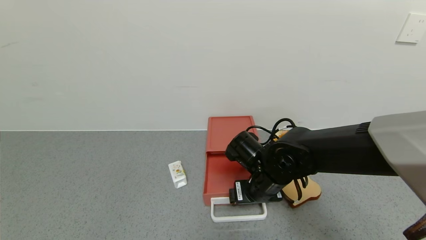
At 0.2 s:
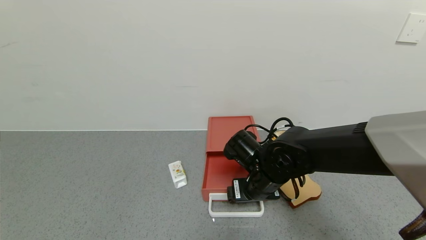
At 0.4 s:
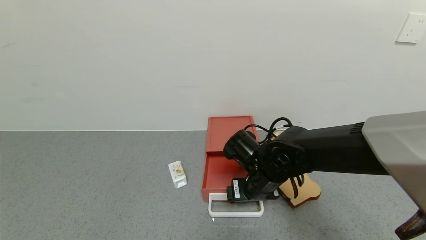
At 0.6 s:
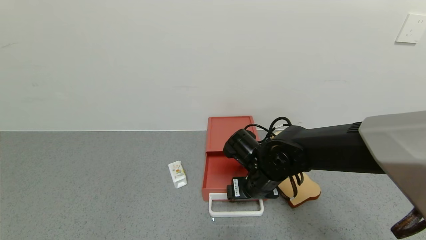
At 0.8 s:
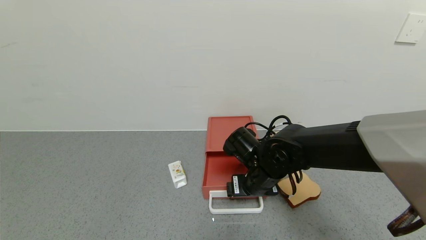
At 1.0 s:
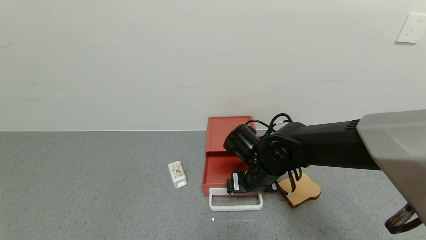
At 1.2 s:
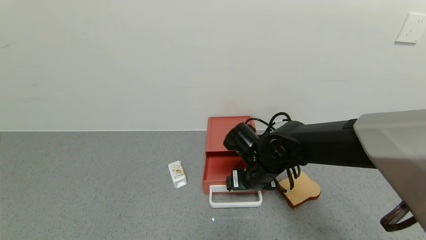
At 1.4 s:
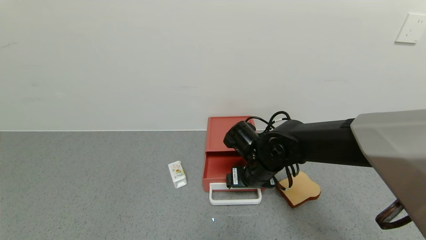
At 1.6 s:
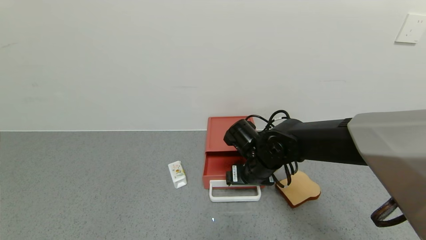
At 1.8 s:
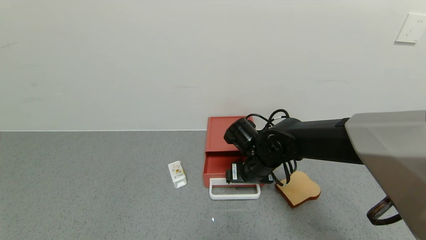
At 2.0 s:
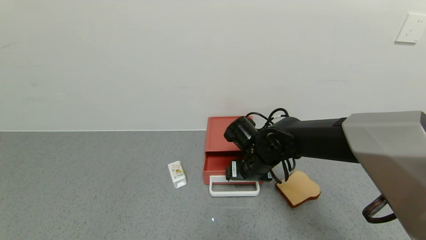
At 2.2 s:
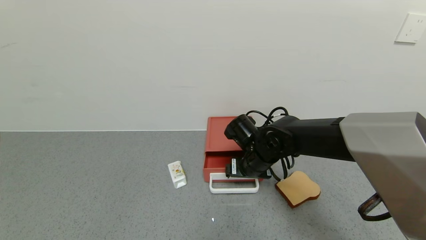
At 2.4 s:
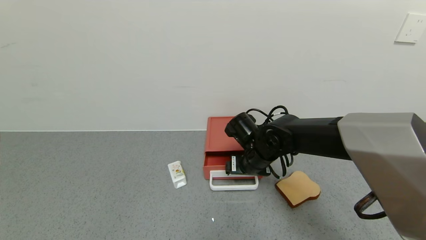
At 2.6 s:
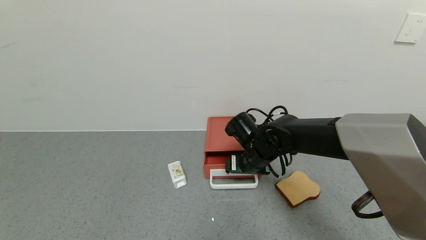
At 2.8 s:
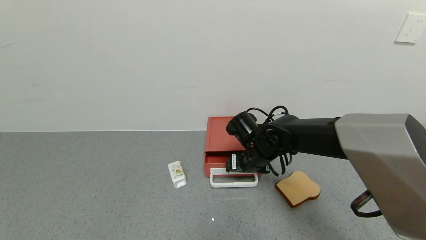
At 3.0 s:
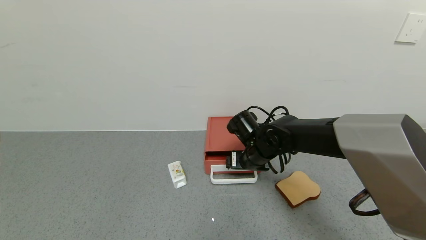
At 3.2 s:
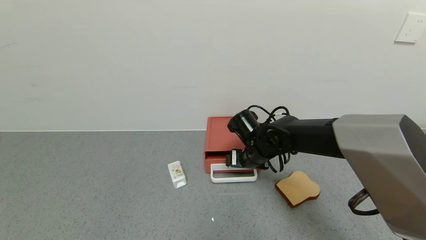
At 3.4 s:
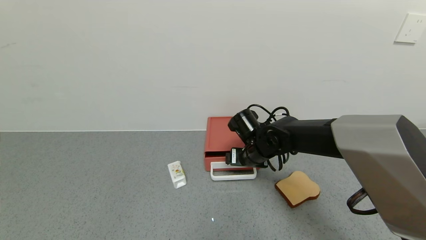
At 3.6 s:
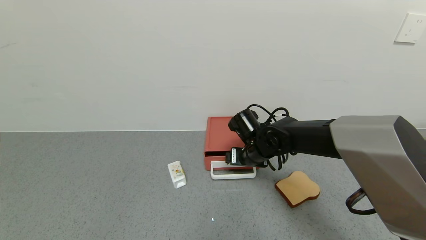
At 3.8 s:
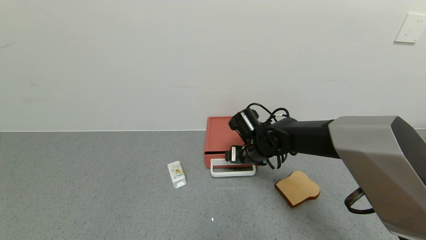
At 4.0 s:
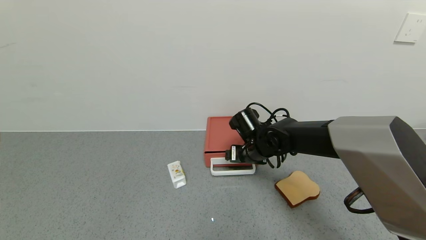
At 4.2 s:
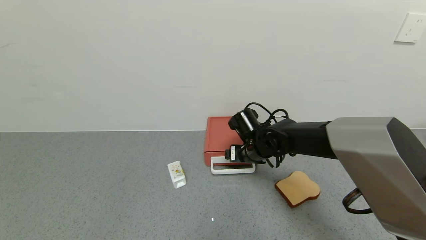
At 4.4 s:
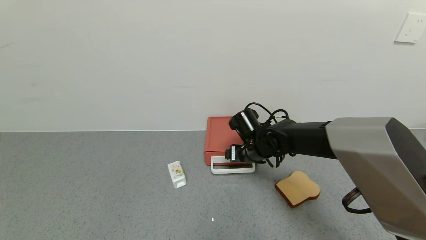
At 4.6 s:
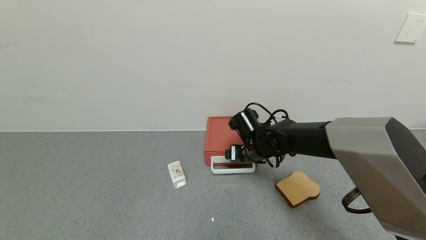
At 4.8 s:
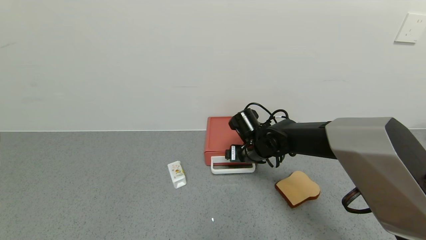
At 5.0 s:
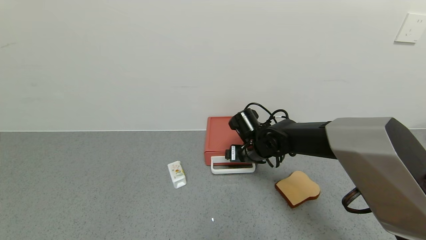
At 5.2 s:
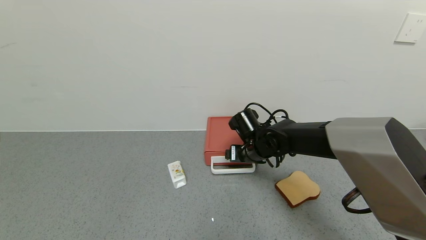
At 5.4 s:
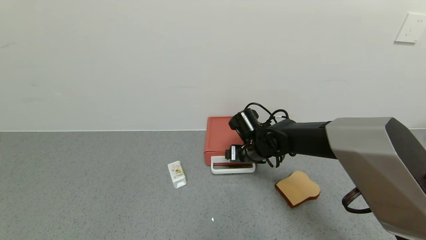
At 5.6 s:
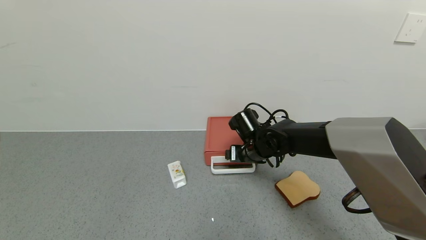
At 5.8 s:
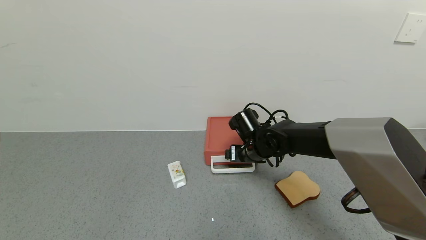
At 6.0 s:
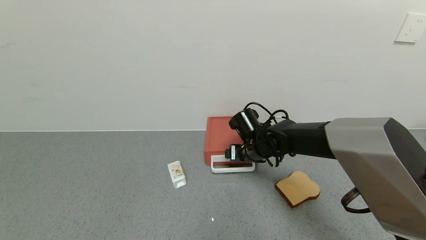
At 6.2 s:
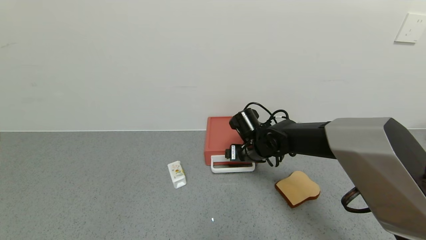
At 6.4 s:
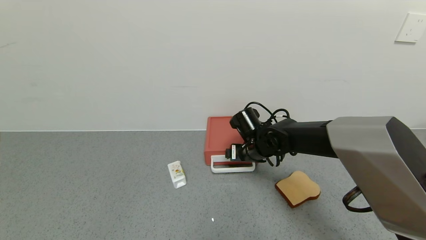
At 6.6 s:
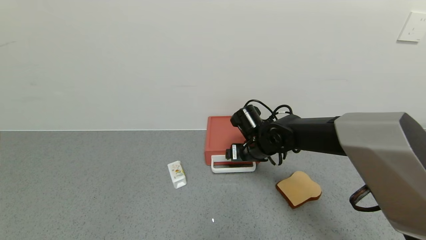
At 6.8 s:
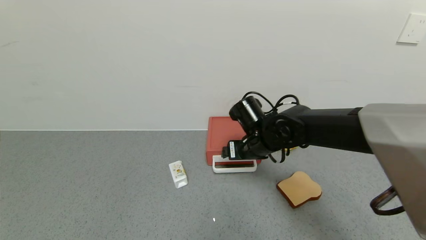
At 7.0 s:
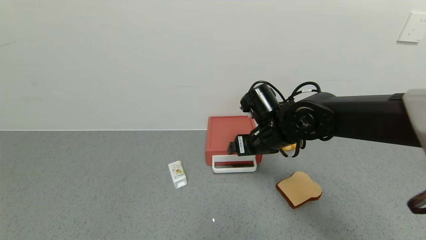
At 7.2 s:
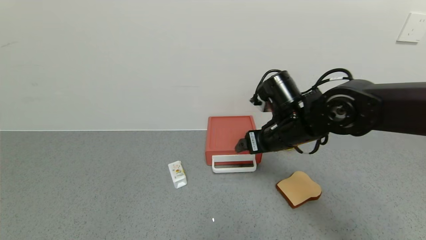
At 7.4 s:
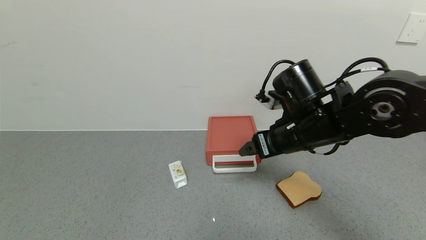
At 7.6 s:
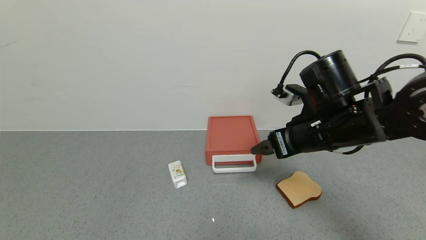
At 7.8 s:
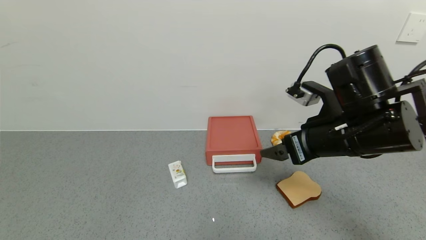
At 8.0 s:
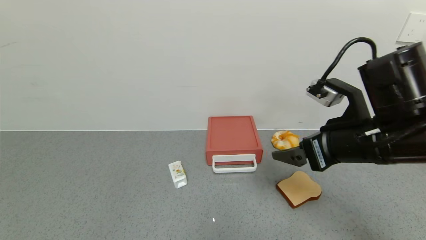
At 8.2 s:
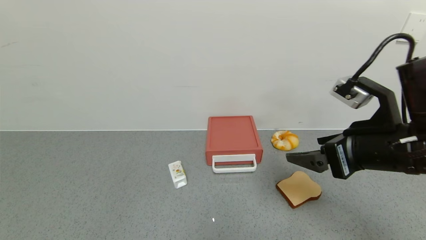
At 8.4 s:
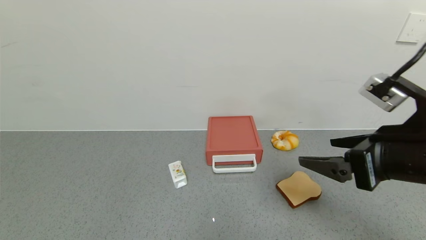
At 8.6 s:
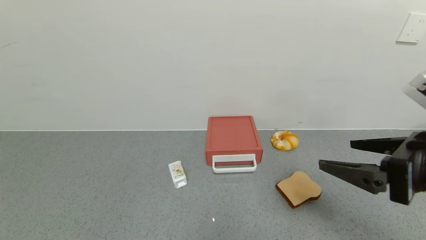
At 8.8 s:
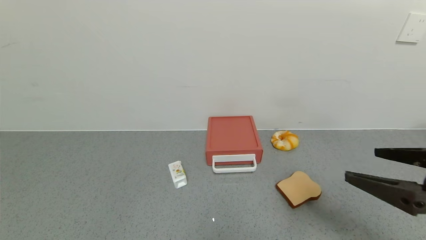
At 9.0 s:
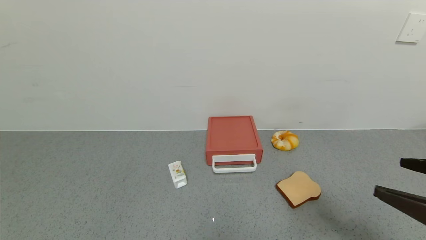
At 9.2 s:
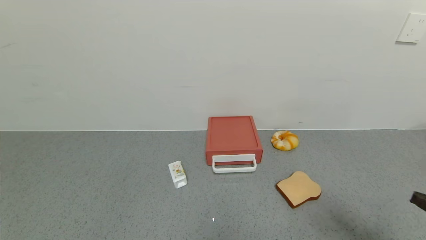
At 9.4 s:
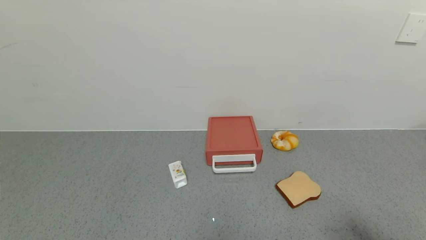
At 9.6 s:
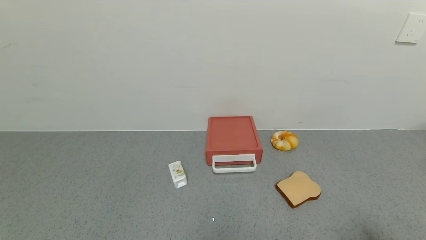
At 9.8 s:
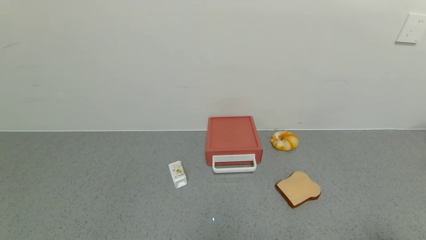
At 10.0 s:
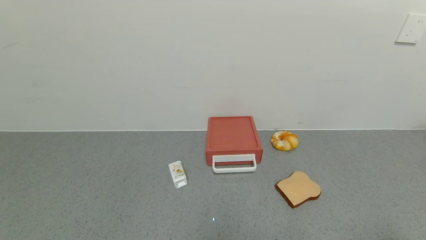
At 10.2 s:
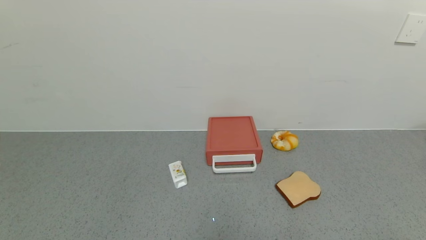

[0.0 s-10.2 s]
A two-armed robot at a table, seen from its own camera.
Task of the whole recording: use the gripper to open the drawer and close the red drawer.
Step, 0.0 to 7.0 s: Close the red drawer with the right gripper.
0.0 to 1.4 s: The grippers move only a little.
1.4 to 3.0 s: There are only small adjustments of the grippers.
3.0 to 4.4 s: The grippers make only small movements.
4.4 to 5.8 s: Both grippers stay put.
5.8 to 7.2 s: The right gripper travels upward, backward and to the right by about 15 cm.
7.2 to 8.8 s: The right gripper heads backward and to the right, covering roughly 25 cm.
8.8 to 10.2 s: The right gripper moves backward and to the right, some 20 cm.

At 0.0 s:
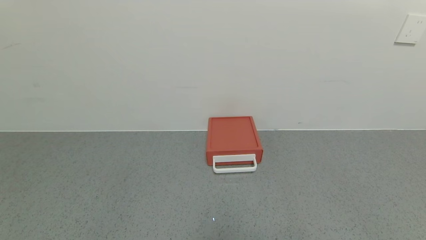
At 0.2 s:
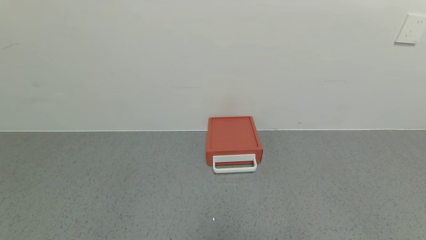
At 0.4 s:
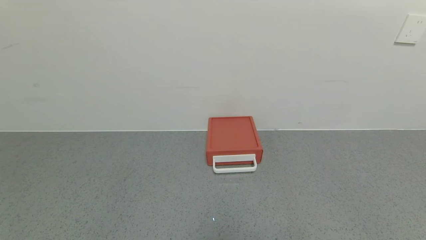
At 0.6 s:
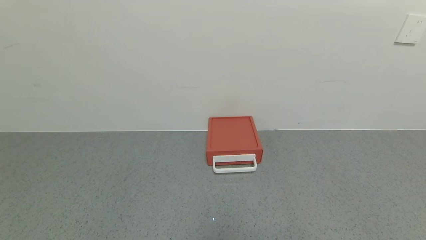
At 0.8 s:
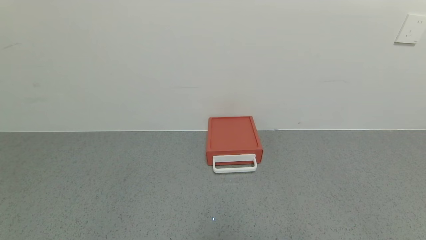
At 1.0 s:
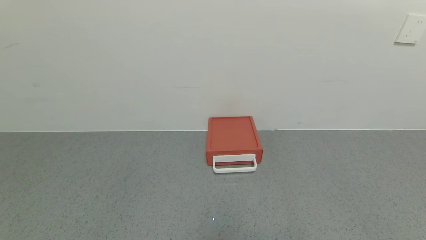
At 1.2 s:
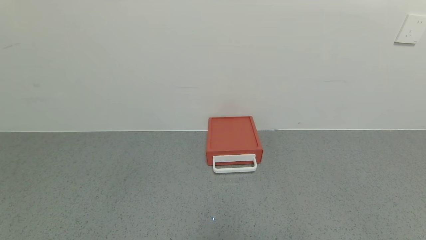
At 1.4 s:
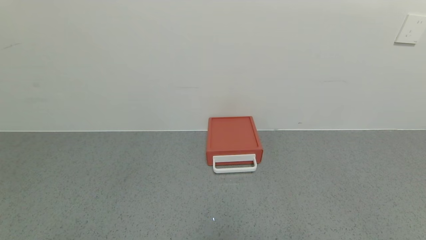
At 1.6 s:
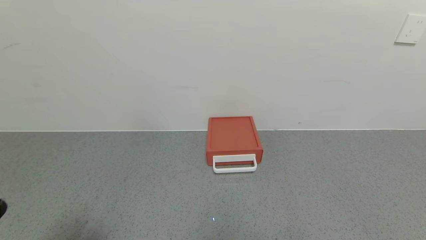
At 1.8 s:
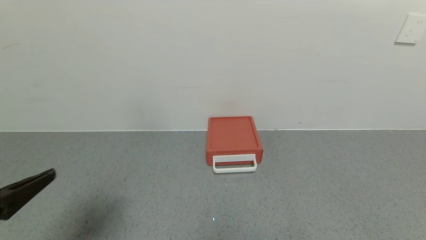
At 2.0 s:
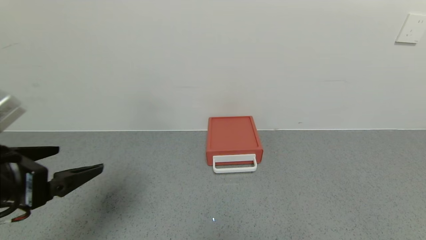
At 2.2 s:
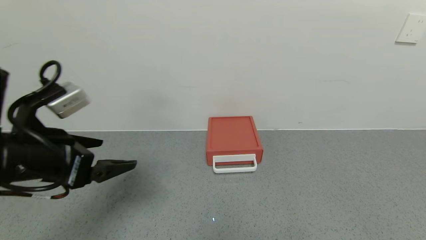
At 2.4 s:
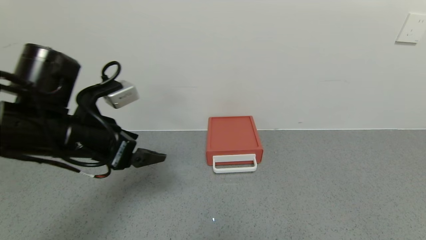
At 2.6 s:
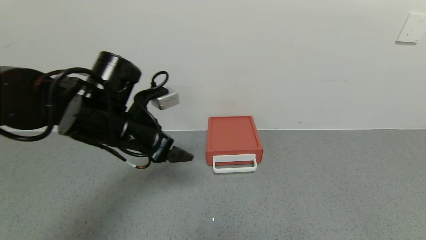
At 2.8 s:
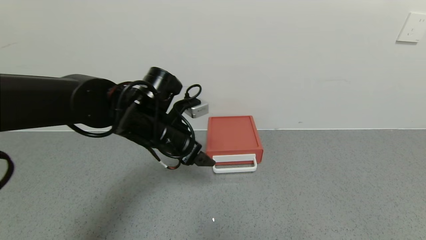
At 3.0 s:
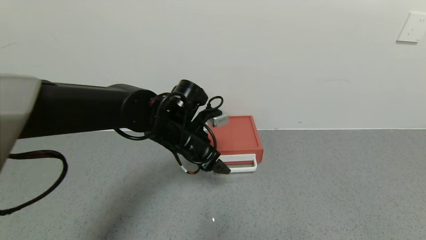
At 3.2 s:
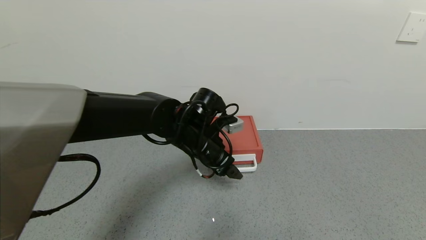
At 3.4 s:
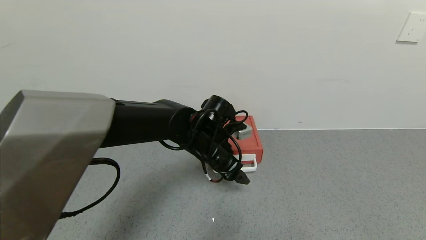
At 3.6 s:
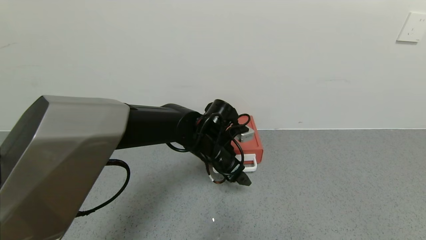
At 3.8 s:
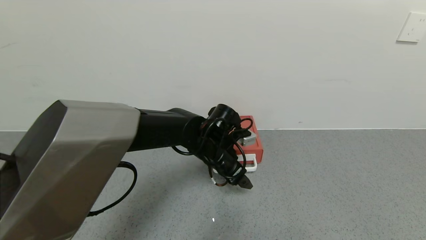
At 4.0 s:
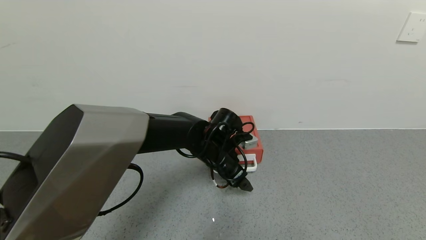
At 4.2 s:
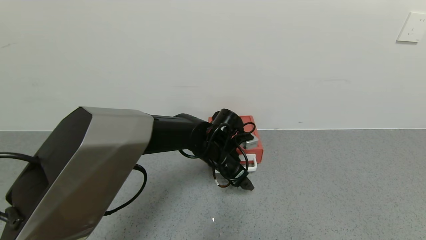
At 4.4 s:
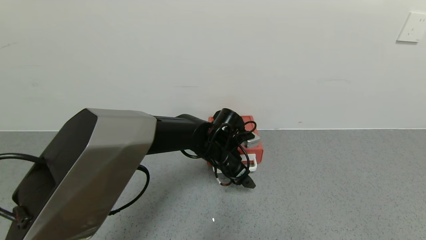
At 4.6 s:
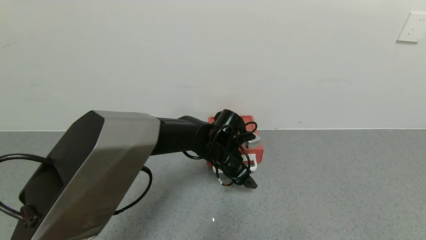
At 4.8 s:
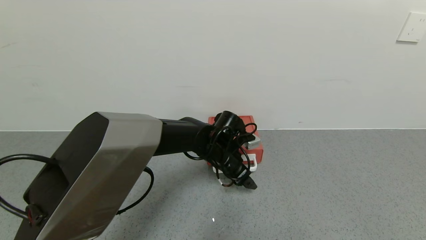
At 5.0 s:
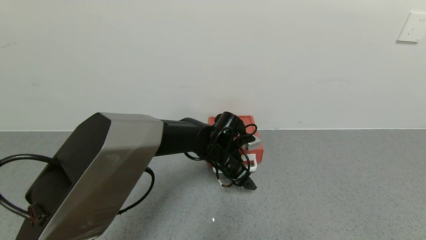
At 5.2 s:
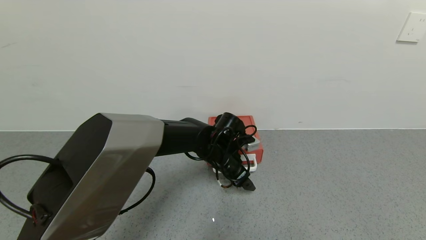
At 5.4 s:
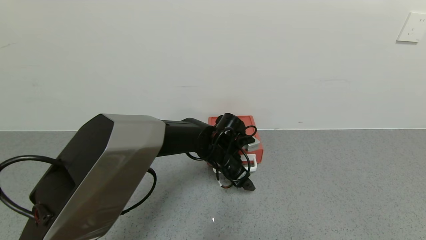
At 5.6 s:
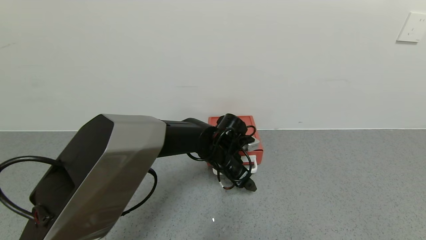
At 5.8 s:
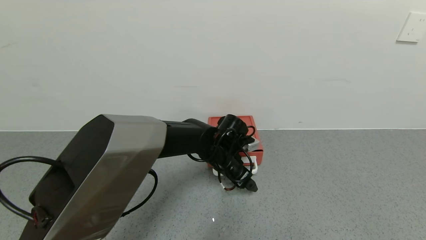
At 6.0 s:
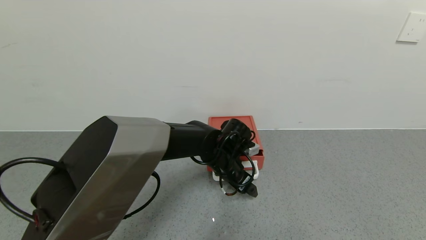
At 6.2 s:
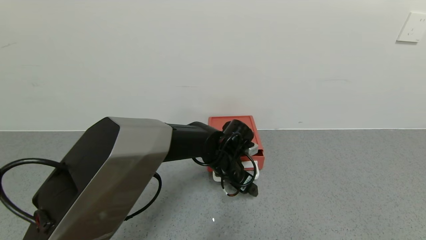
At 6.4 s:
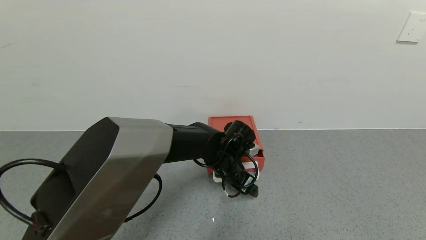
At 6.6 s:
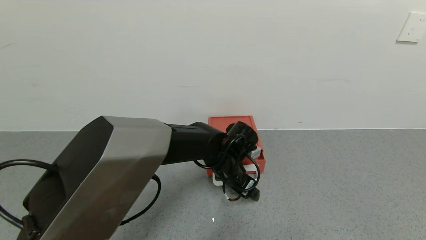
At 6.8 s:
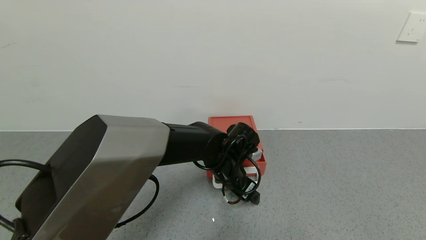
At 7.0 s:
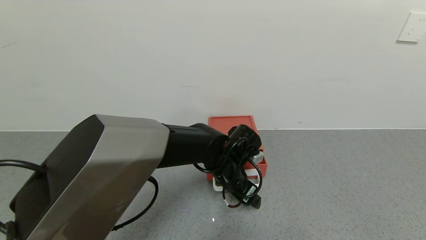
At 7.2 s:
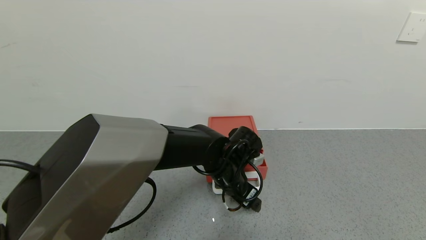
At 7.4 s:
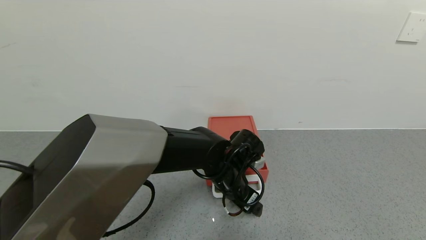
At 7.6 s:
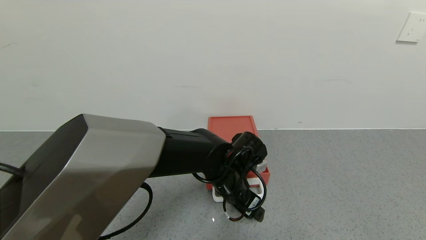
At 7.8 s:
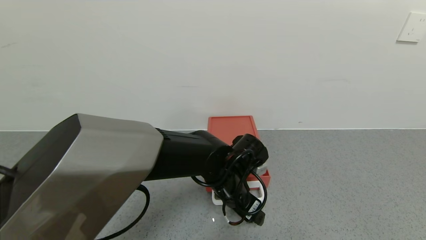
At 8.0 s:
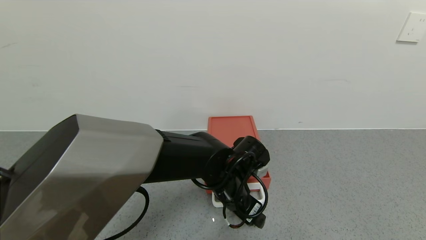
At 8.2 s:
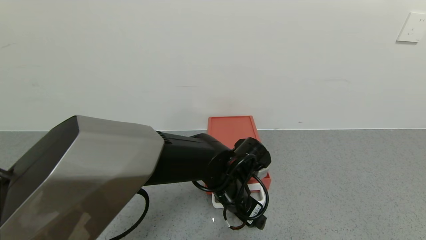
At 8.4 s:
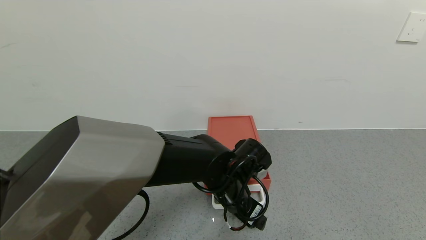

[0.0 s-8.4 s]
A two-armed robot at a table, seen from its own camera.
Task of the whole recording: use the gripper to open the drawer and close the red drawer.
1.4 to 2.8 s: The left gripper heads forward and to the right, covering roughly 40 cm.
2.8 to 4.2 s: The left gripper goes approximately 15 cm to the right and downward.
4.2 to 7.0 s: The grippers make only small movements.
7.0 to 8.4 s: The grippers stay close to where they were, moving slightly.
